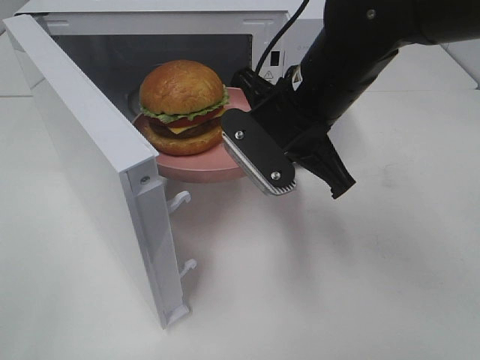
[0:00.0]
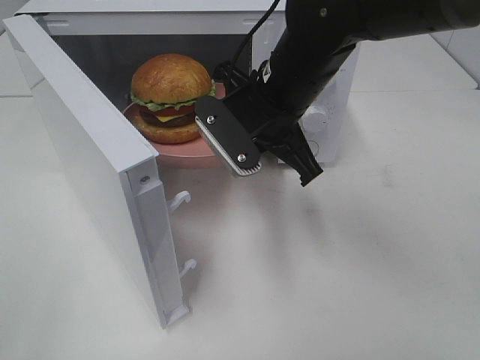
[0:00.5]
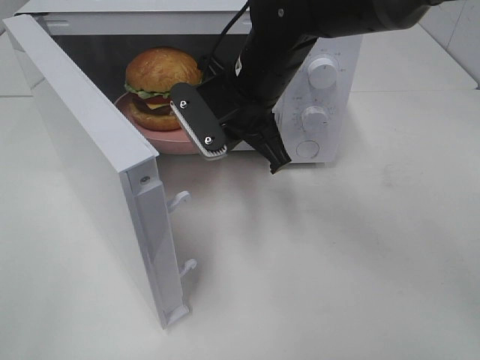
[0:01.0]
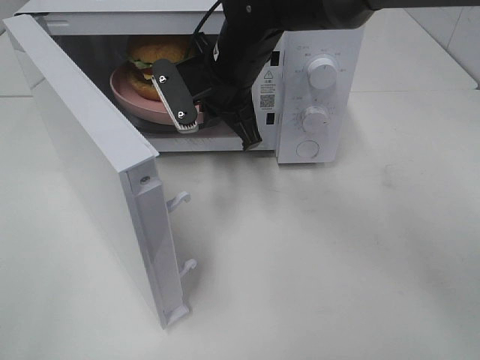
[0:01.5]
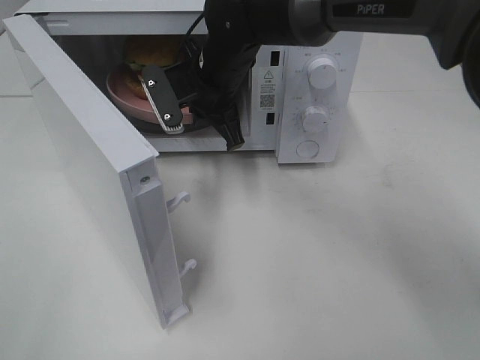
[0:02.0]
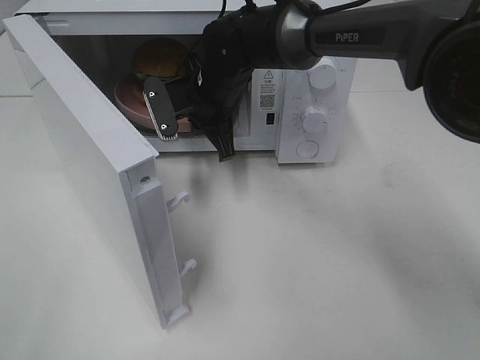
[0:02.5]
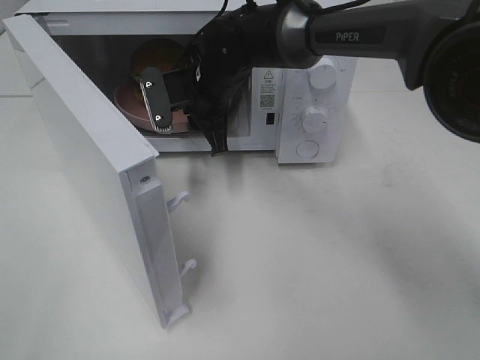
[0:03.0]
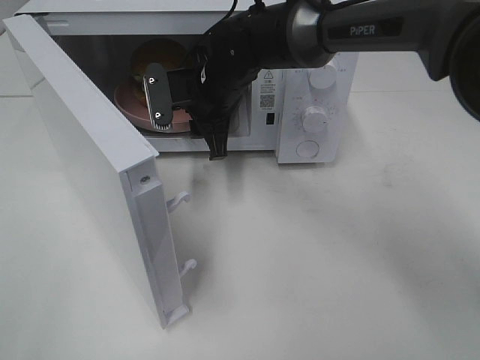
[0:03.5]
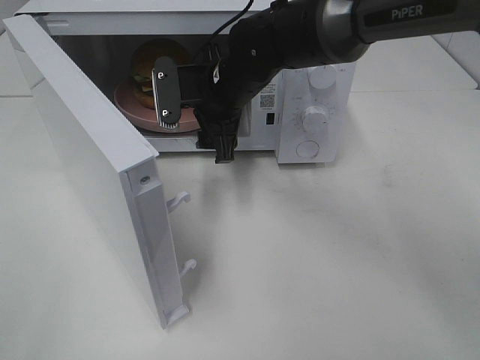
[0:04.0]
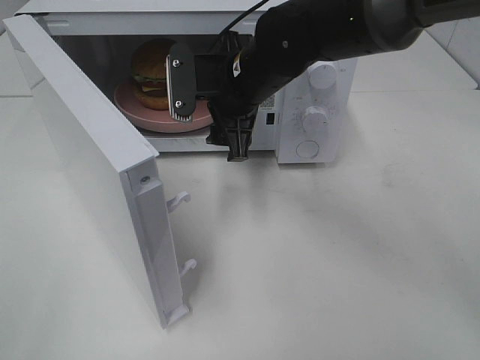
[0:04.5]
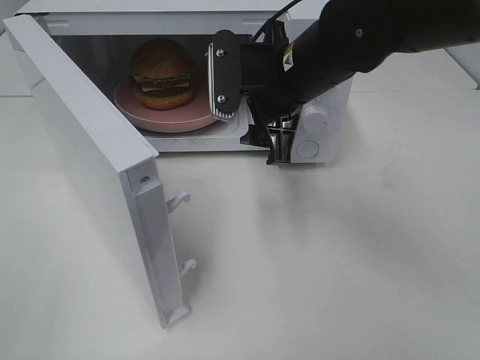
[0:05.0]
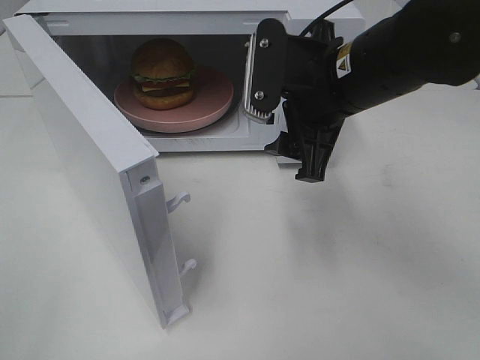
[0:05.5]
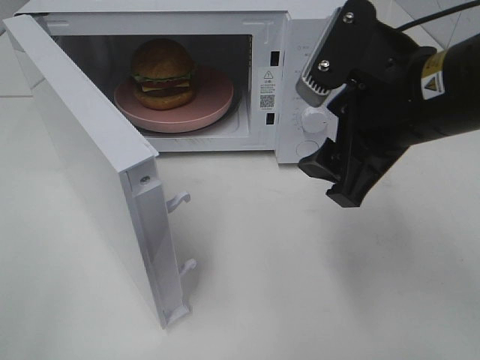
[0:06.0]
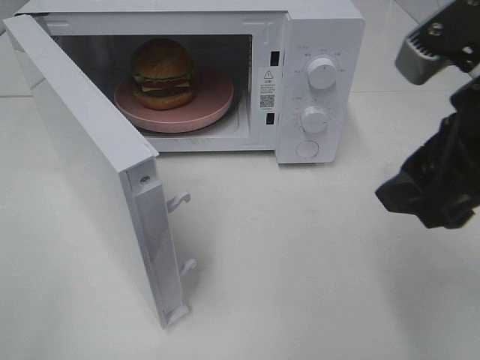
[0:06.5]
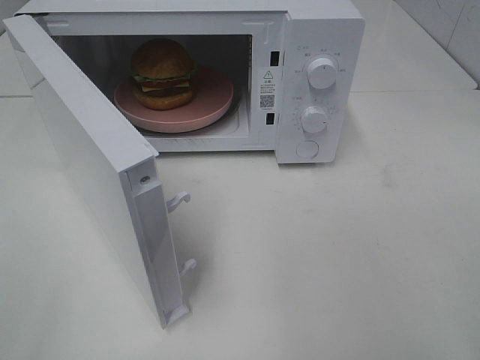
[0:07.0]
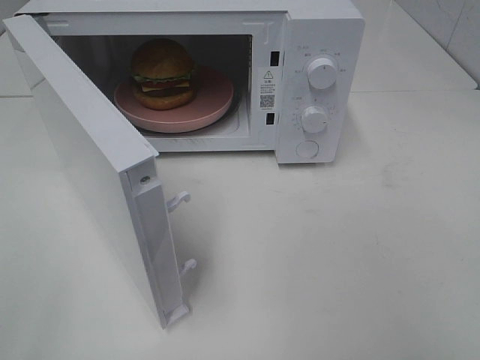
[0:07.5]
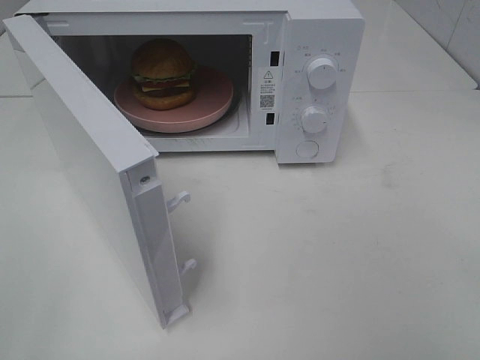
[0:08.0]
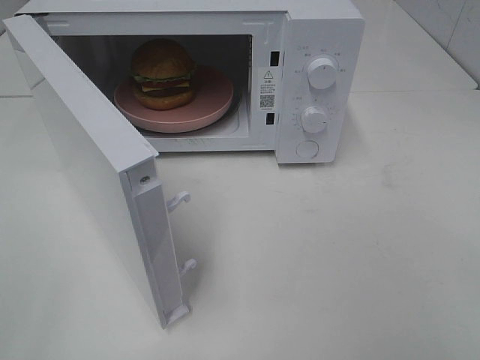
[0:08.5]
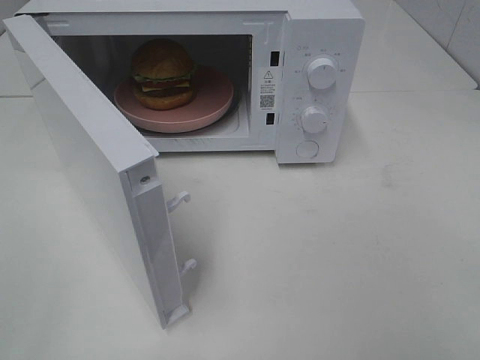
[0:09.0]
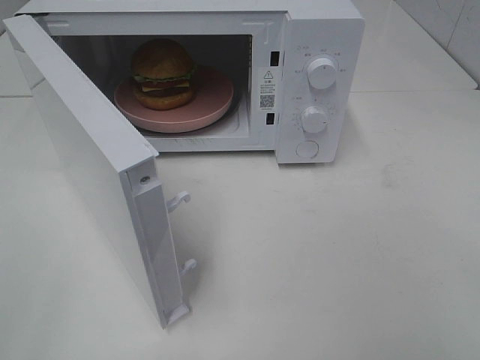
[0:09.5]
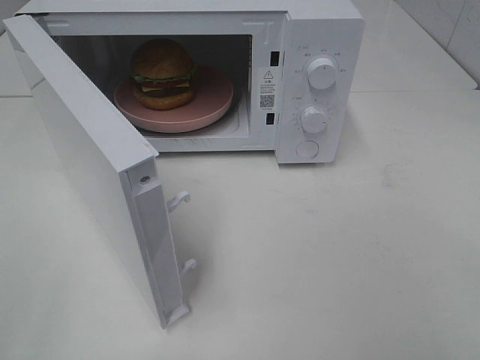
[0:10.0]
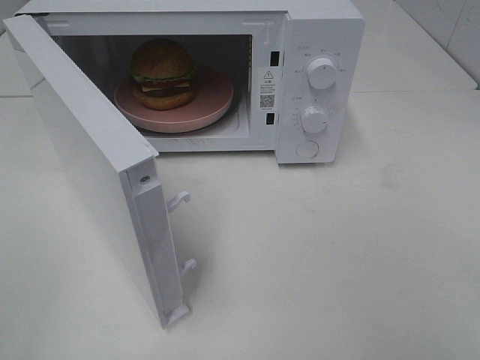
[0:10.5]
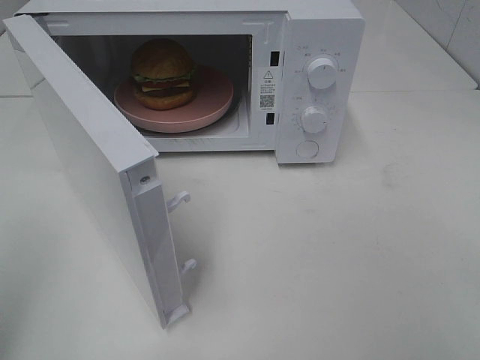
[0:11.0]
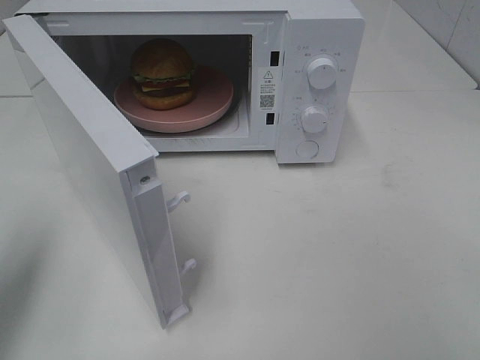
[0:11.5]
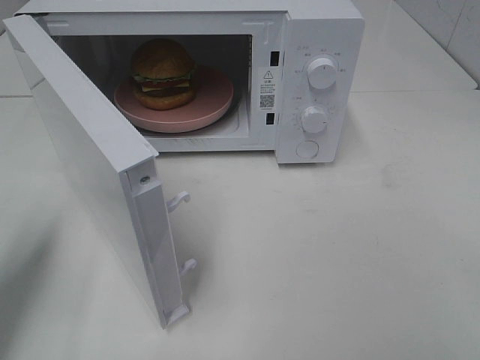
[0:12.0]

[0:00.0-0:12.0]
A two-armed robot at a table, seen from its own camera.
Task of the whole recording: Heat the burger.
Step, 0:00.0 to 0:03.0: Right hand: place the plate in the microwave.
0:00.0 to 0:02.0: The right gripper is displaced forward and to the left by approximately 15 cm.
0:02.0 to 0:04.0: The right gripper opens up.
0:04.0 to 0:06.0: The right gripper moves backward, to the right and upward, approximately 25 cm.
0:06.0 to 0:08.0: The right gripper travels backward and to the right by about 25 cm.
0:10.0 to 0:12.0: The left gripper goes approximately 20 cm forward, and closes.

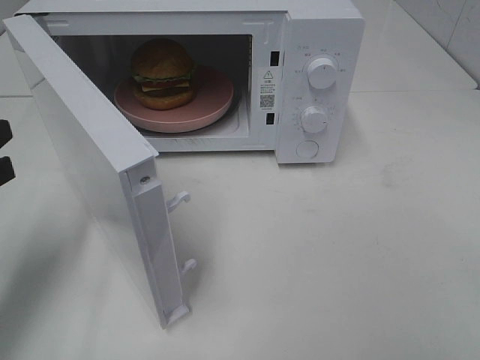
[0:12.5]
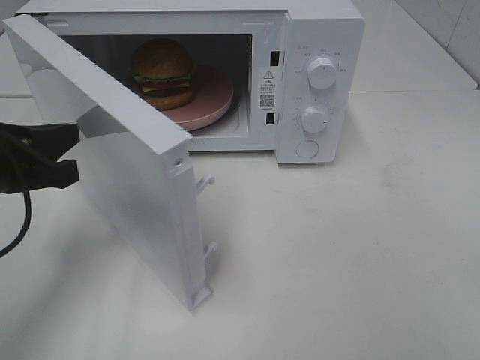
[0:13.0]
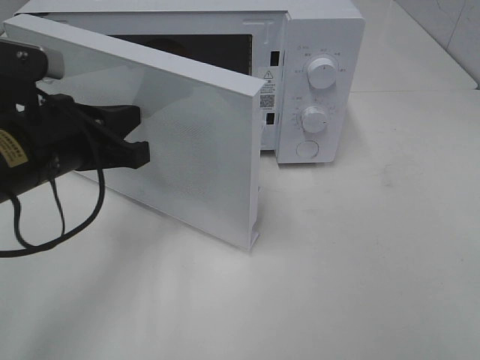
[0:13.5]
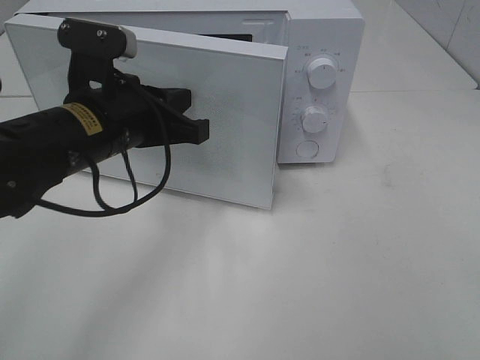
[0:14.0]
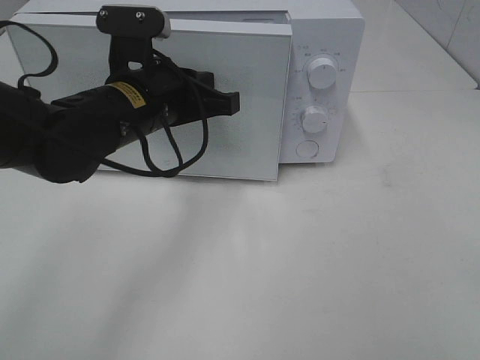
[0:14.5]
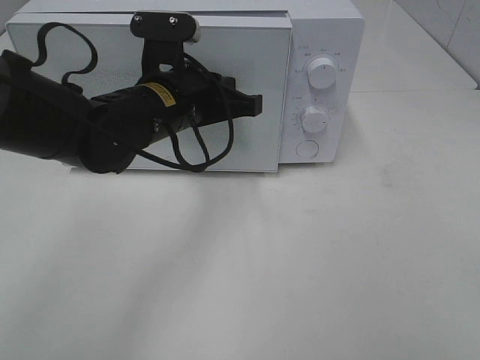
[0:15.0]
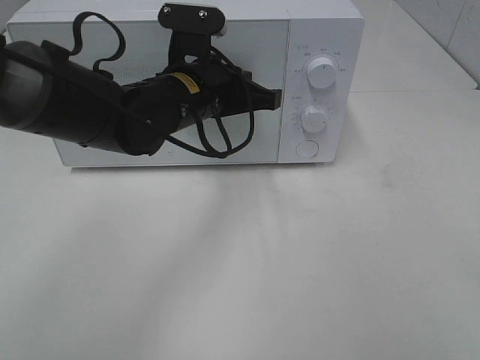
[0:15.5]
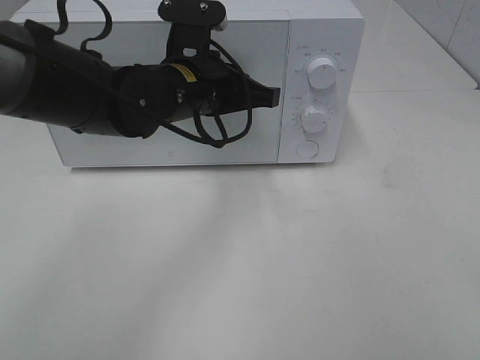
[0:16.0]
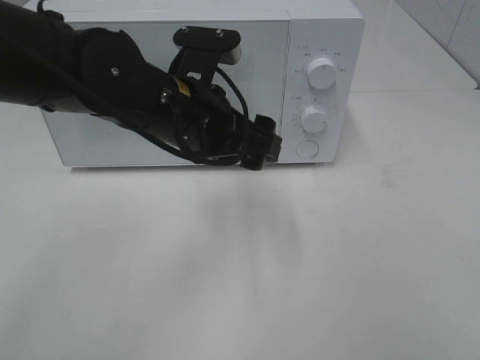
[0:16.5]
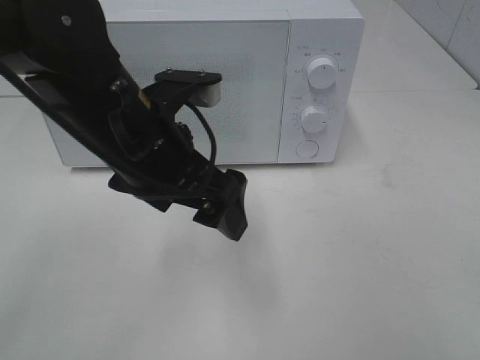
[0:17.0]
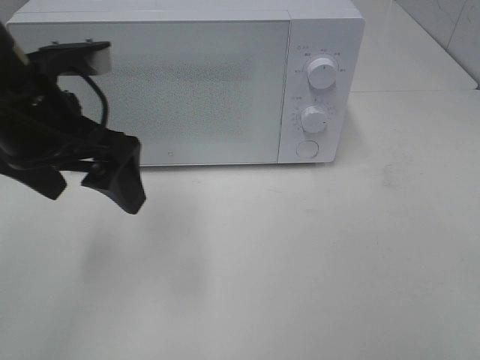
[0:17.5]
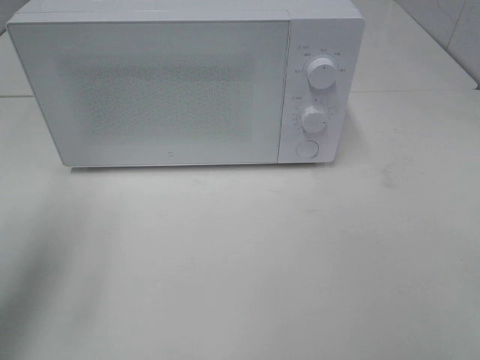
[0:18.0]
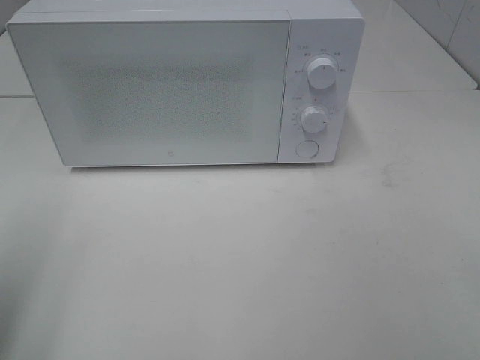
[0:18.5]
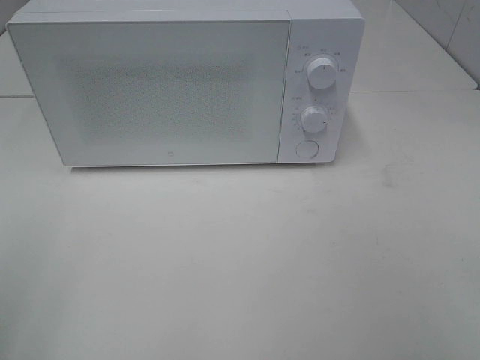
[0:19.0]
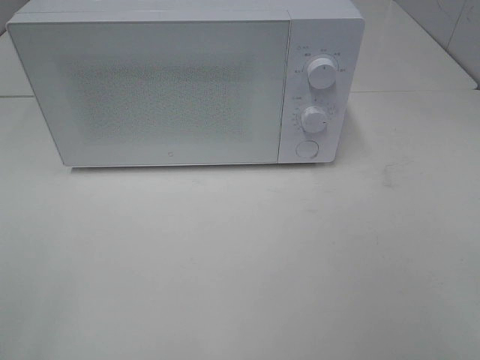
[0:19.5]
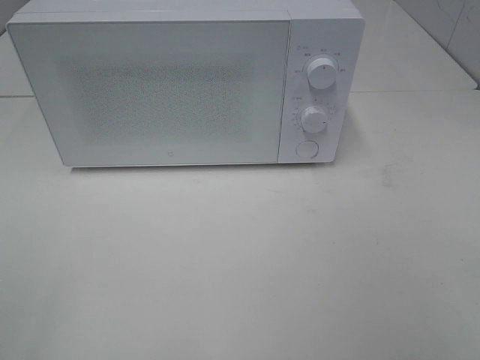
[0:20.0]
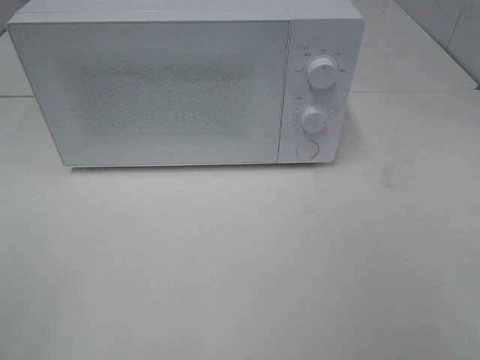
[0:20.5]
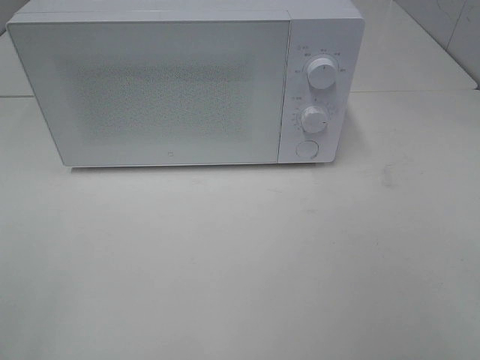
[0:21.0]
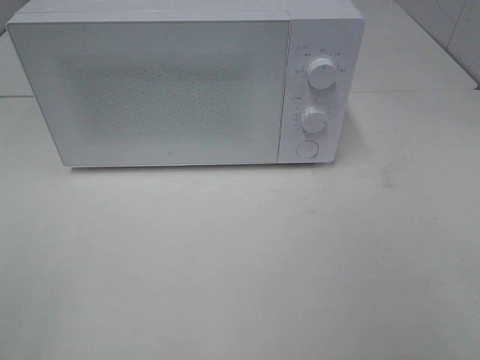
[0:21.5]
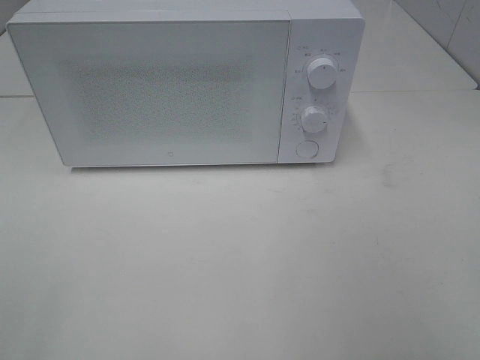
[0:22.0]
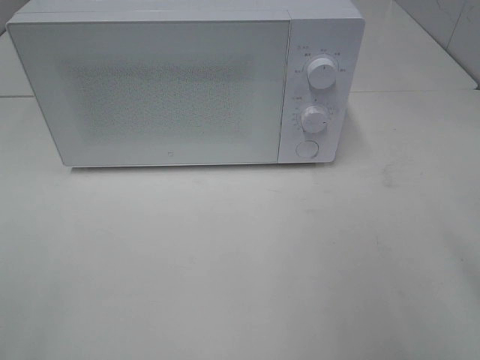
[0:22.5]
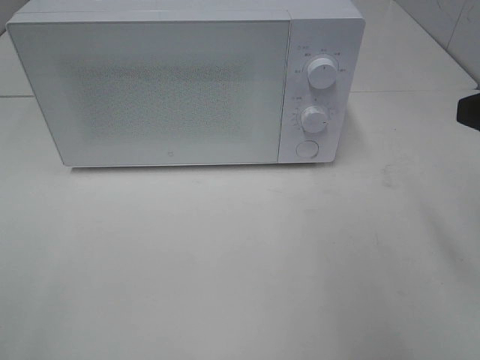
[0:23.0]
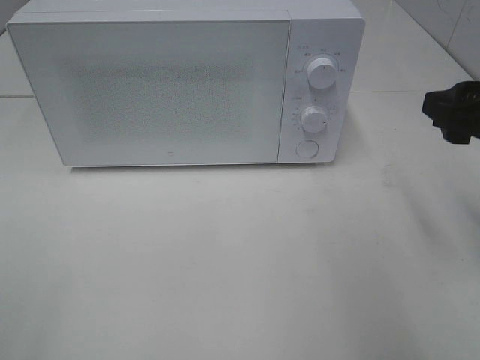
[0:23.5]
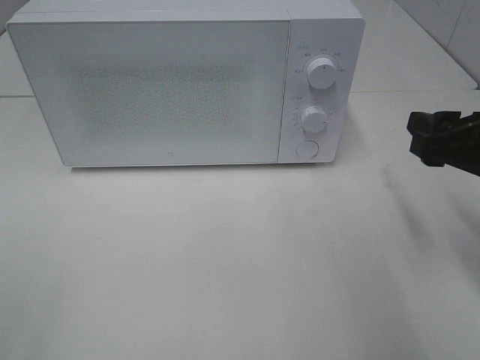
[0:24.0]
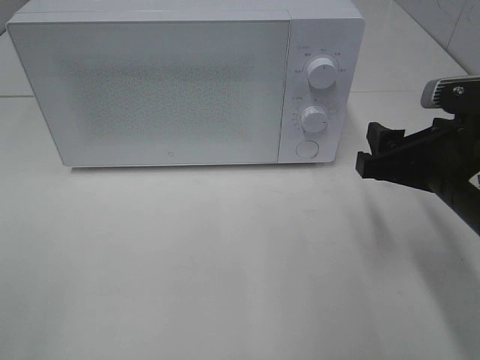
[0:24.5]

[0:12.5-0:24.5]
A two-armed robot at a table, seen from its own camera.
Task of the whole recording: Heat the burger.
Step, 0:12.5 to 0:16.0: Left hand: close the microwave door.
0:12.5 to 0:14.5: The left gripper is displaced to the right and forward by approximately 20 cm.
0:14.5 to 0:16.5: The left gripper opens.
0:16.5 to 0:18.5: The left gripper goes about 30 cm to the left and backward.
0:18.5 to 0:20.5: The left gripper goes some 10 cm backward.
0:22.5 to 0:24.5: The right gripper moves downward, forward and to the left, about 15 cm.

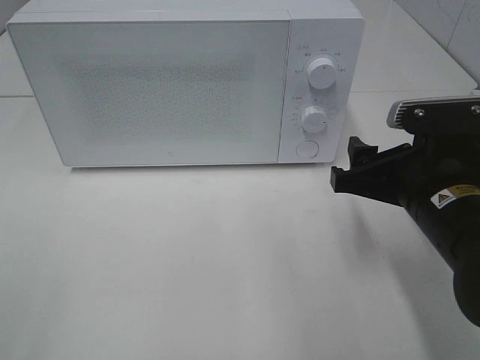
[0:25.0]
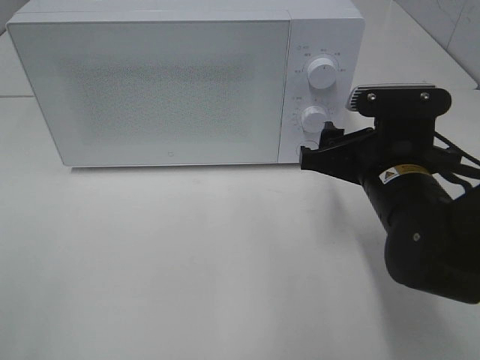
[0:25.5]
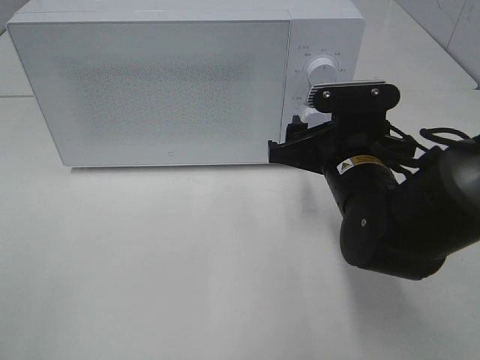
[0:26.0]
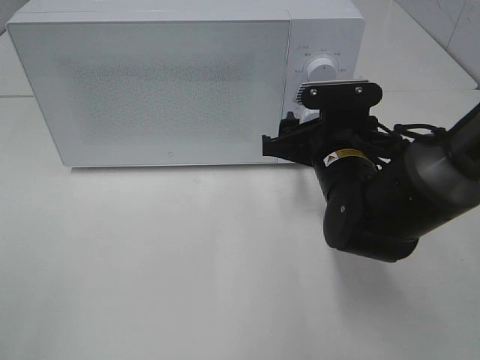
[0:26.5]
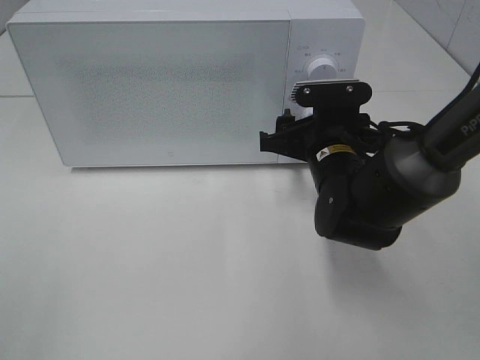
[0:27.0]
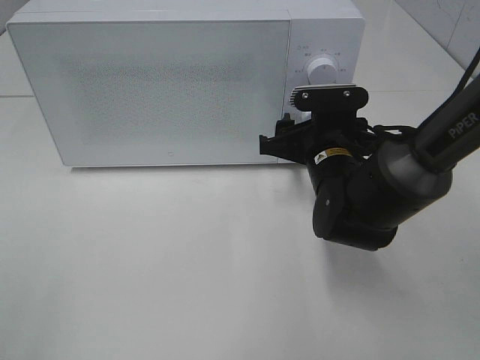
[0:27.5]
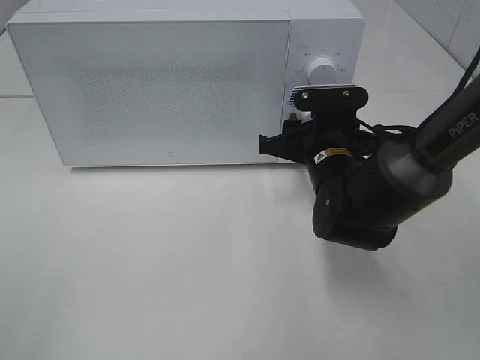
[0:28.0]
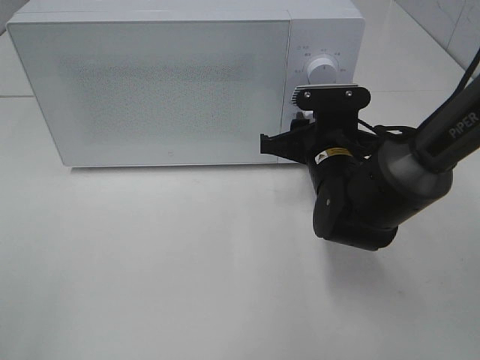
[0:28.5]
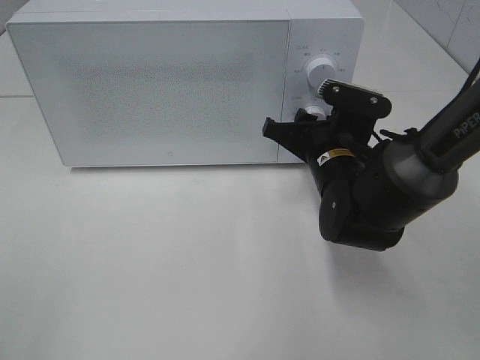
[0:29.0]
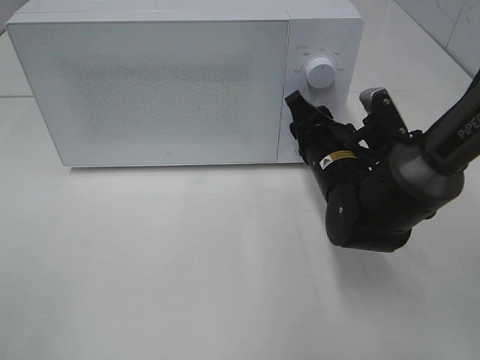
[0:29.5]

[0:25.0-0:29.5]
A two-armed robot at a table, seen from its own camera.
Task of the whole recording: Heat the burger.
0:25.0 to 0:27.0: The right gripper shifts some 10 cm forward and to the left.
0:27.0 to 0:29.5: The right gripper closes up.
